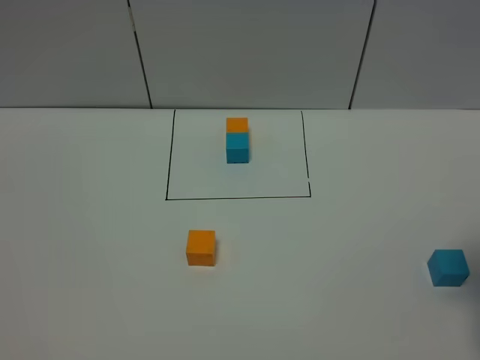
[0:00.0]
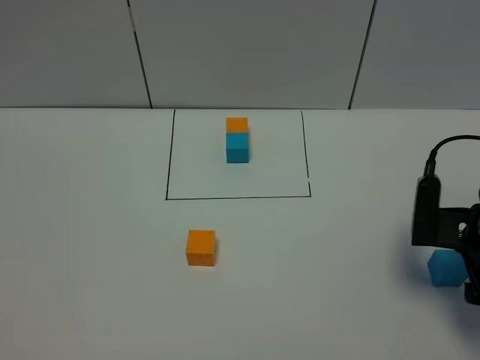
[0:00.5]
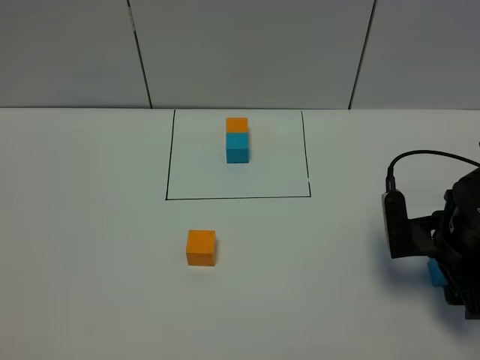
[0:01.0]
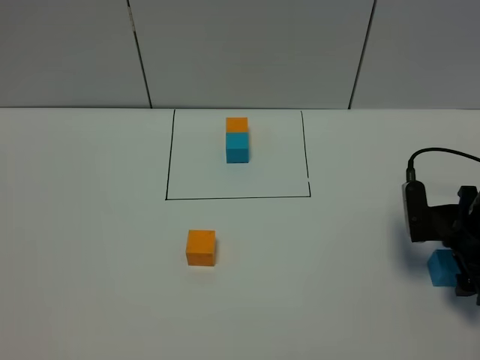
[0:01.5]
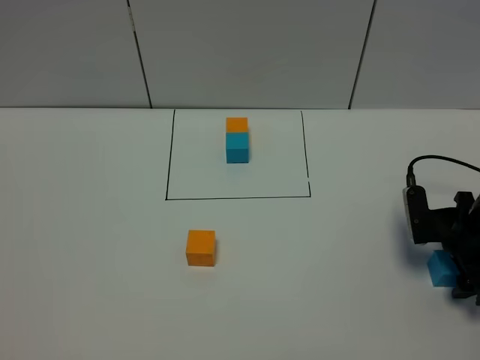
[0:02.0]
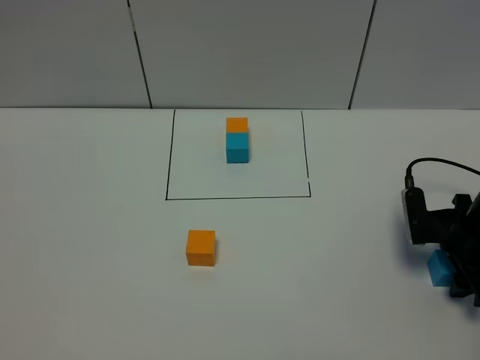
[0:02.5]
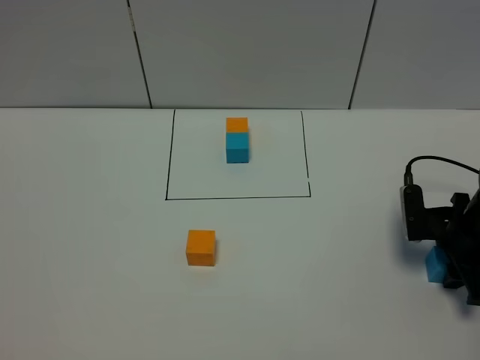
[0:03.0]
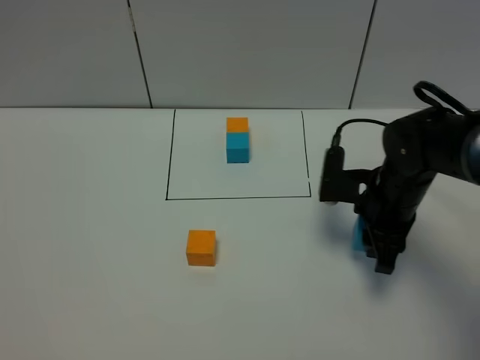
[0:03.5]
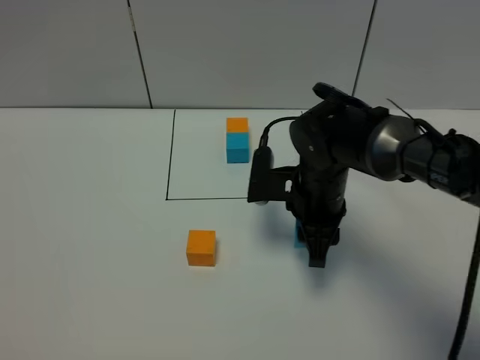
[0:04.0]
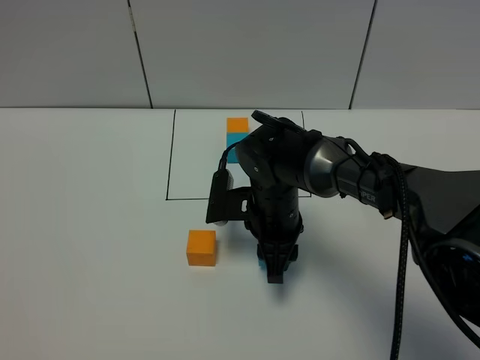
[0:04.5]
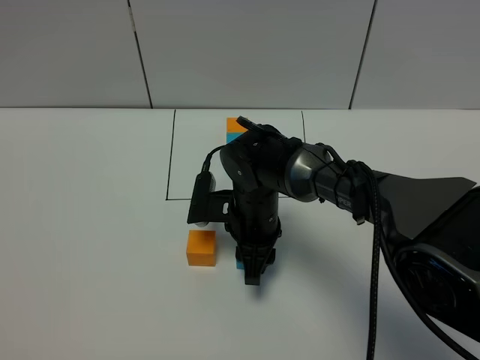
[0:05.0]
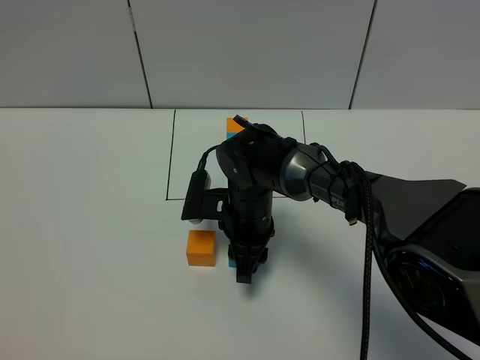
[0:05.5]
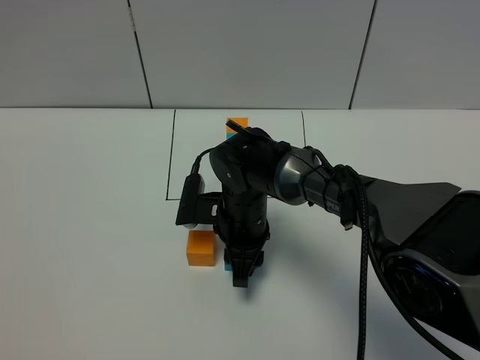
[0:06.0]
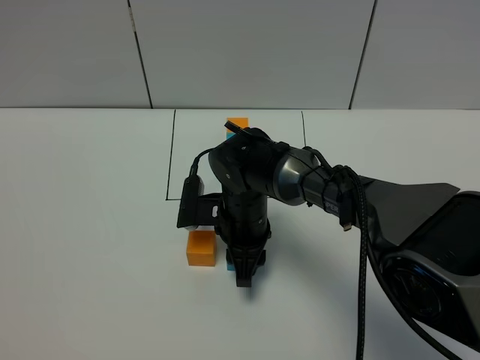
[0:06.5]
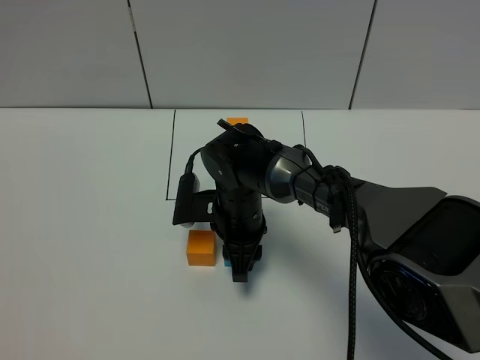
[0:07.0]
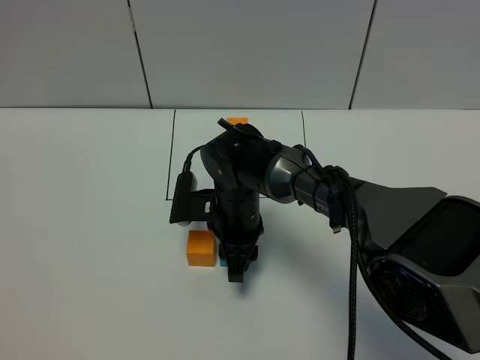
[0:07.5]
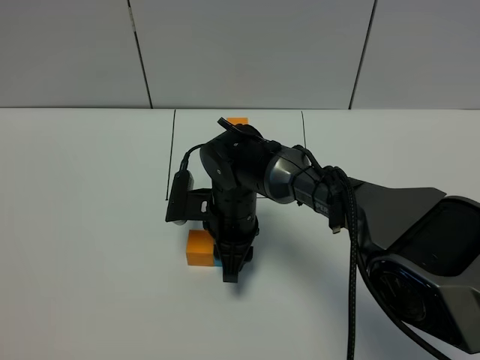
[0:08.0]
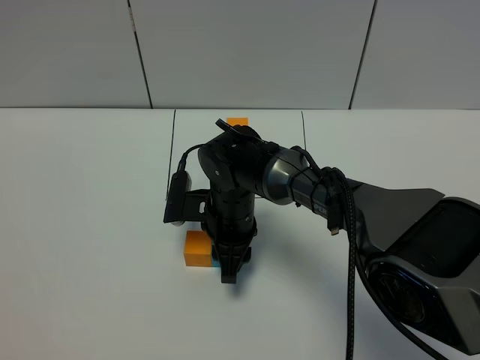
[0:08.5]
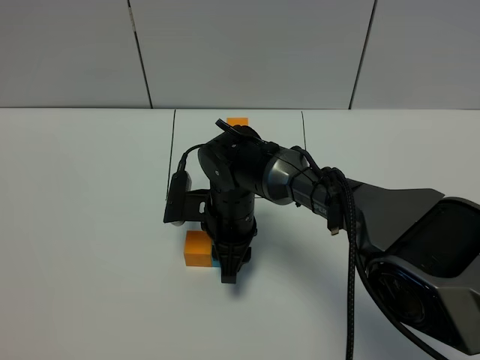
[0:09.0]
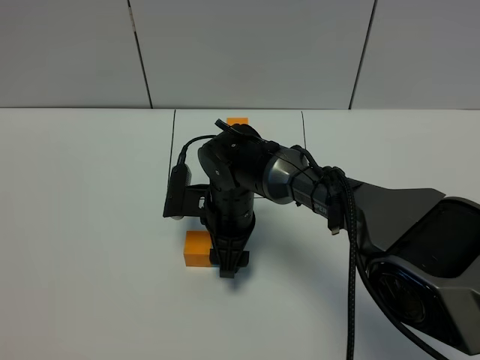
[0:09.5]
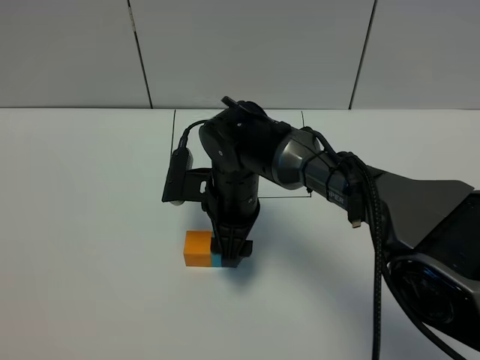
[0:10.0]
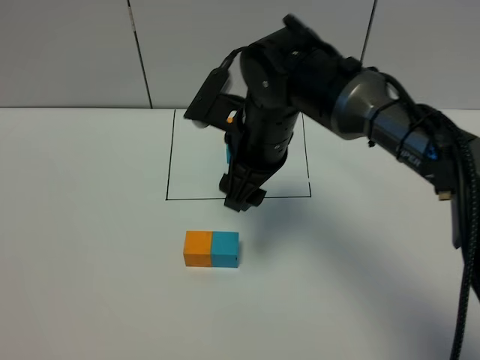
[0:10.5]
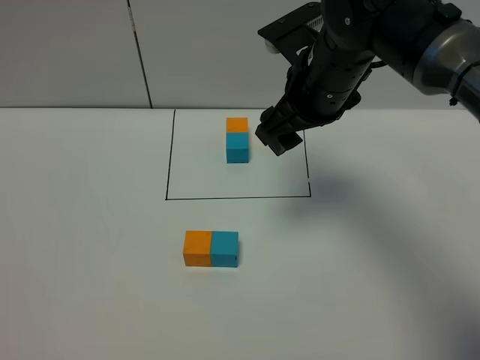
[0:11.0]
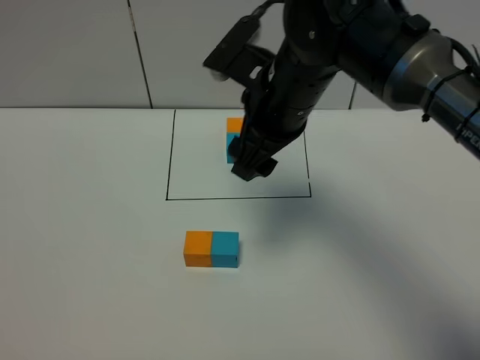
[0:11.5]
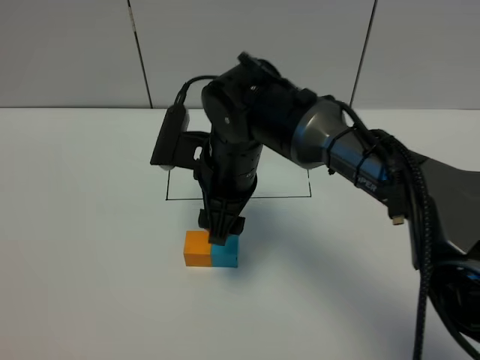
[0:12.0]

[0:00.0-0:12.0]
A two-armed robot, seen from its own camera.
Task of the whole recording: According to the building block template in front, assemble the scattered blocks together.
Step, 0:00.0 to 0:09.5: Put the blue cube on the right of the orange cube.
0:00.0 to 0:02.0: The right gripper shifts some 15 cm downward and forward.
0:02.0 to 0:04.0: The right gripper shifts approximately 20 cm to the left, and closes.
0:04.0 to 0:06.0: The right gripper heads to the left and downward, covering about 10 cm.
0:06.0 to 0:08.0: The grippers move only a little.
0:08.0 to 0:10.0: The right gripper opens up.
0:10.0 to 0:12.0: The right gripper is displaced upward by approximately 5 cm.

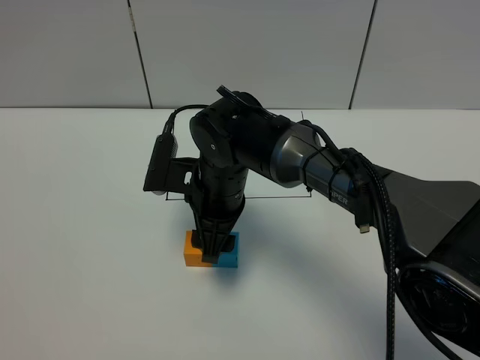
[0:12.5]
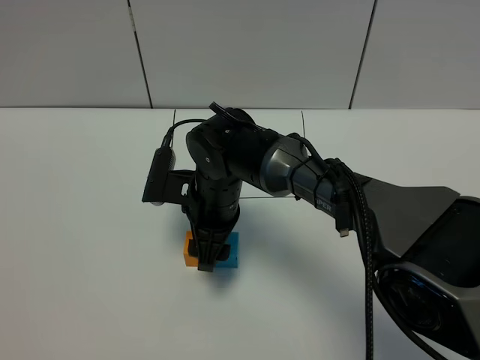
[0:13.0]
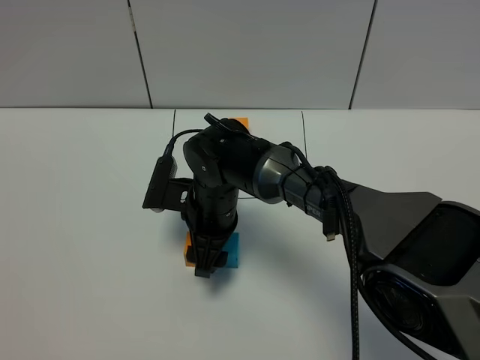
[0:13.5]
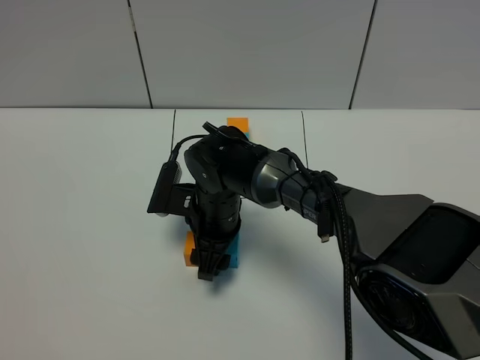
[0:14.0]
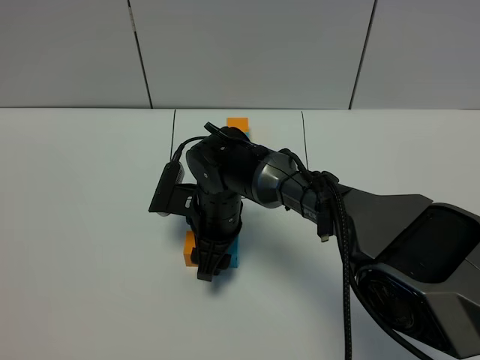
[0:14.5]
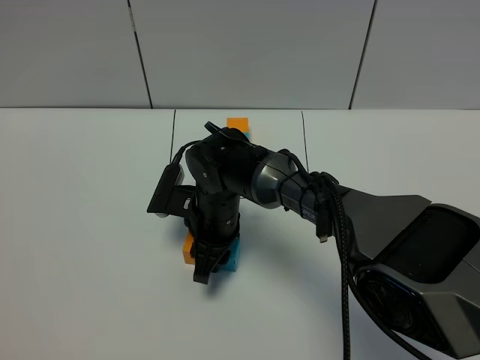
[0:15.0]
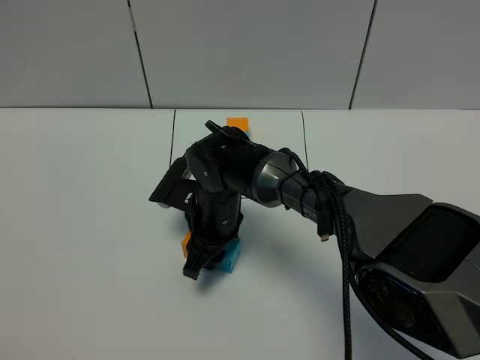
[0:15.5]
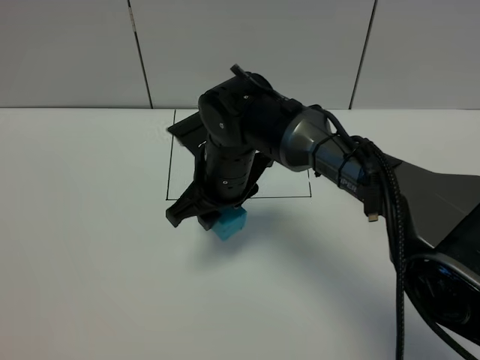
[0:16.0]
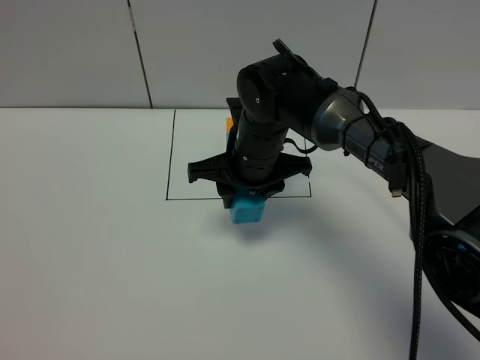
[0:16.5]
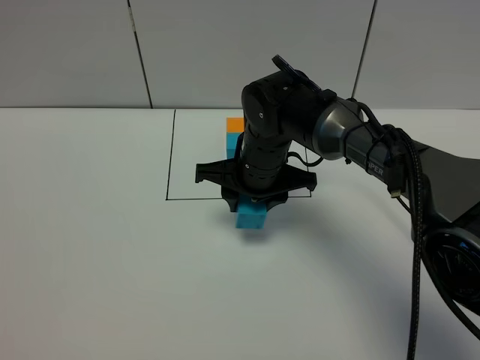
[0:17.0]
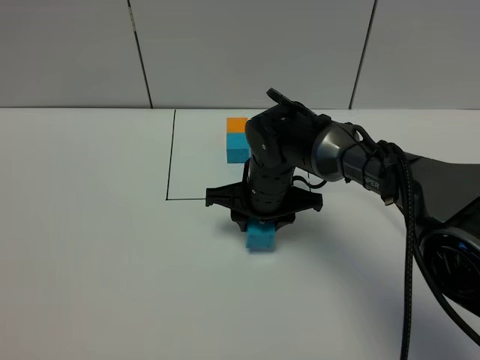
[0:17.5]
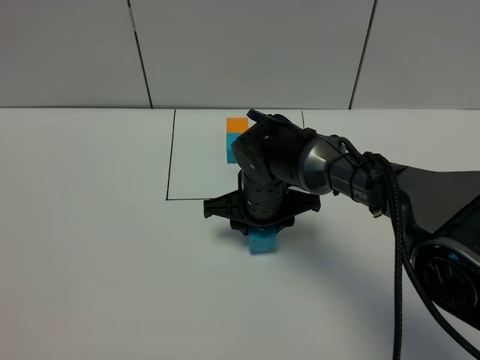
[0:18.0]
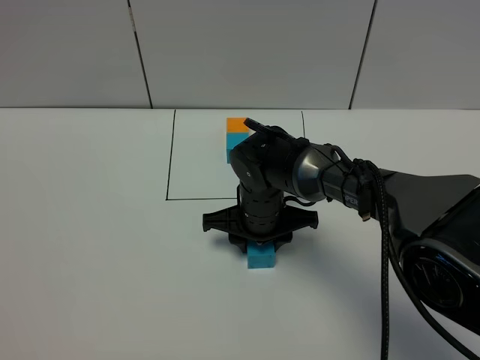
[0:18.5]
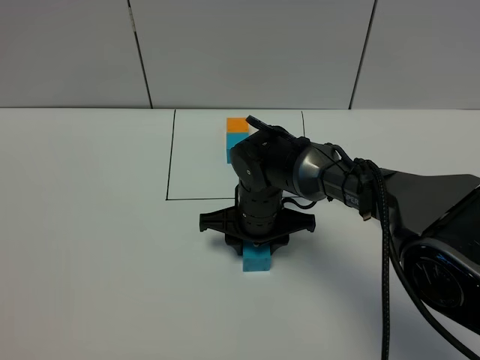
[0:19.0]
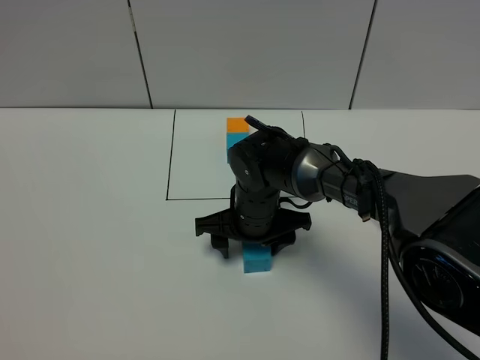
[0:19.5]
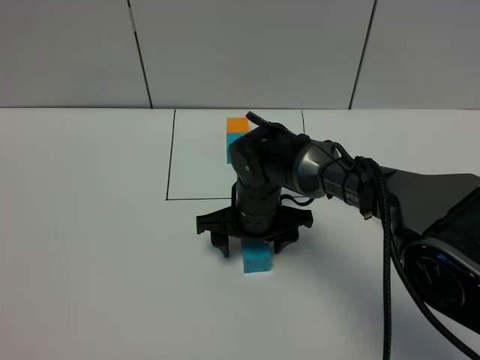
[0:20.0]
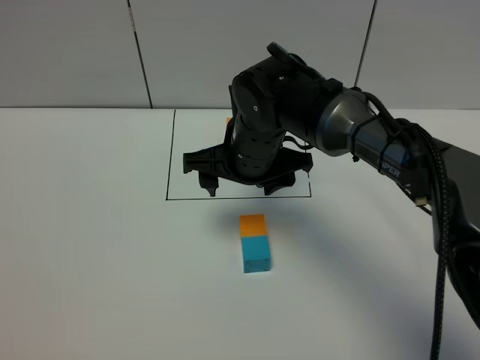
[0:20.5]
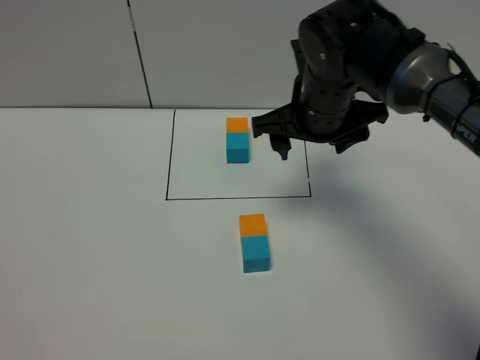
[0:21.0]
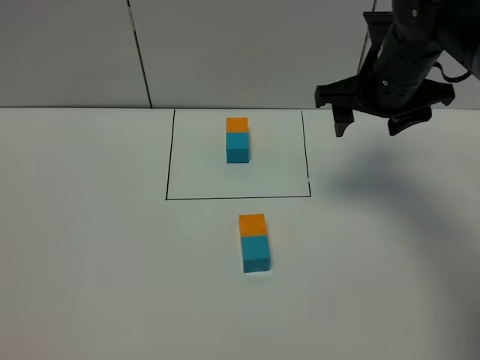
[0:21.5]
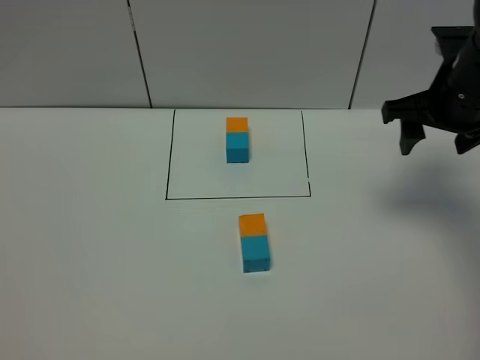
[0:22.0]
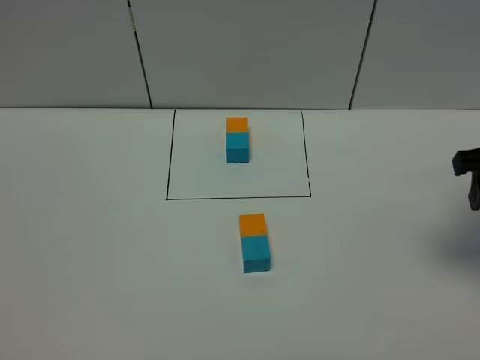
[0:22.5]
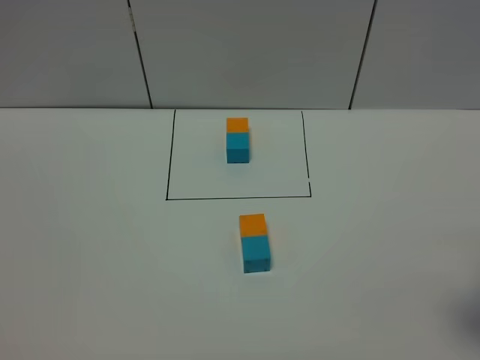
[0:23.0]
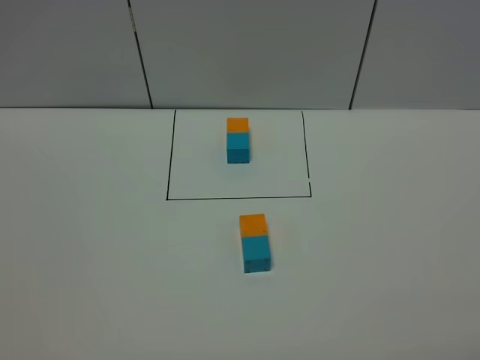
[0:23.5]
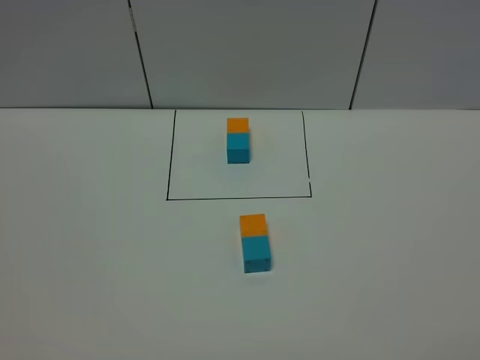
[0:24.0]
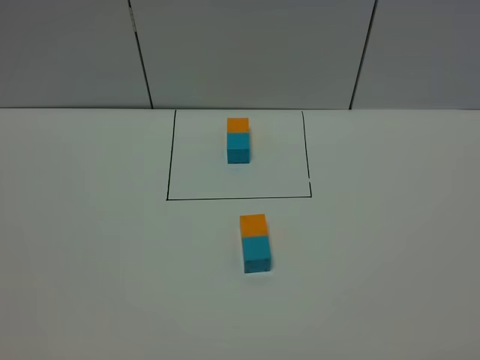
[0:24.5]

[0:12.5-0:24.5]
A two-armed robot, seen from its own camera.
Task of the whole recording: According to the building block template in front, assemble the scattered blocks together.
Step, 0:12.5 to 0:20.0: Adjust the pose of the building blocks.
0:12.5 to 0:14.5: The right gripper is displaced downward by roughly 5 cm.
0:14.5 to 0:16.5: The right gripper travels upward and to the right by roughly 10 cm, and closes its fingers.
0:16.5 to 0:18.5: The right gripper goes about 10 cm downward.
0:18.5 to 0:20.5: The right gripper travels upward by approximately 10 cm, and opens.
0:20.5 to 0:22.5: The right gripper is displaced to the right by approximately 30 cm.
0:22.5 to 0:24.5: The right gripper is displaced backward by approximately 30 cm.

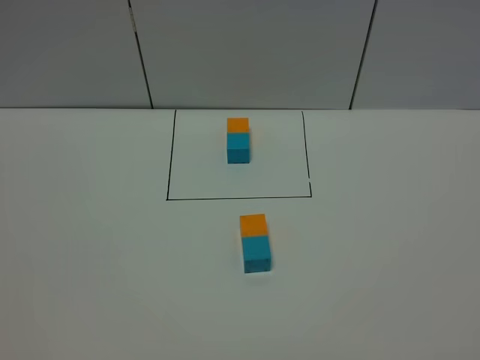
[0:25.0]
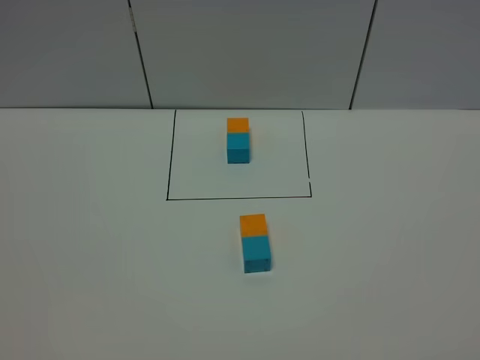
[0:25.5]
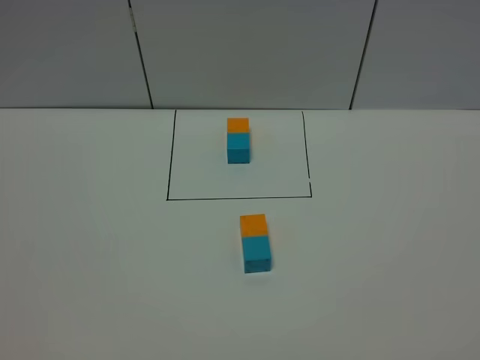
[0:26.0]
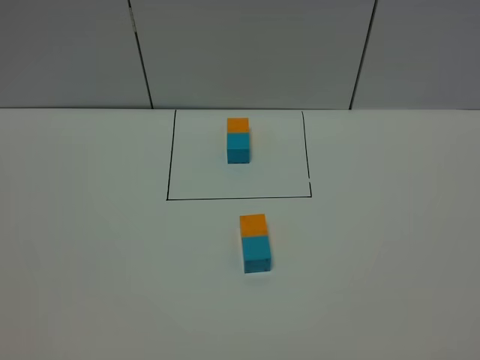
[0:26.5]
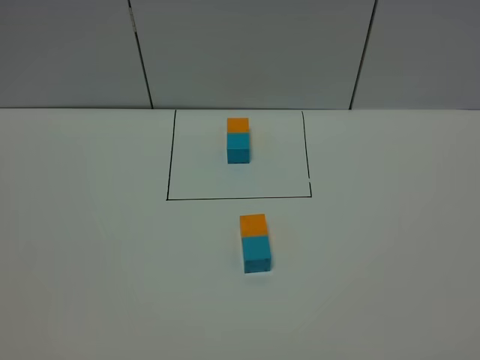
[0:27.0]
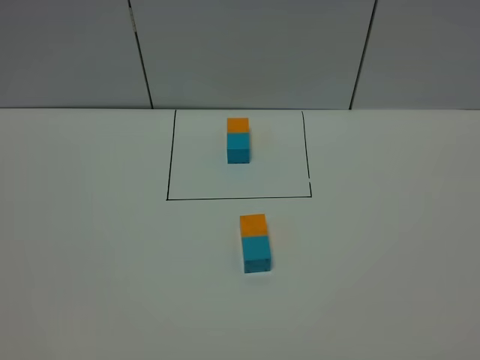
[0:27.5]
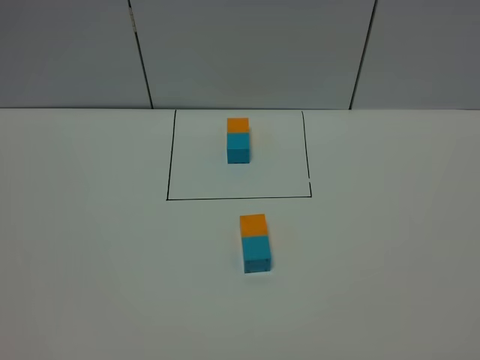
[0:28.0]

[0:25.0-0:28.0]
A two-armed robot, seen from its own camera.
Task of the whole recording: According to the building block template in front, assemble the scattered blocks together.
0:26.5 to 0:28.0: Neither gripper changes place.
